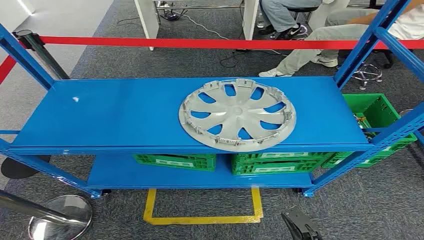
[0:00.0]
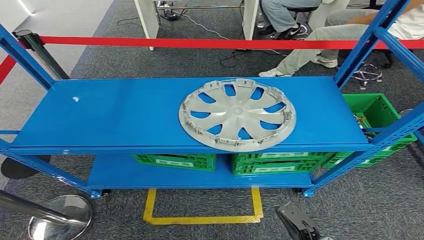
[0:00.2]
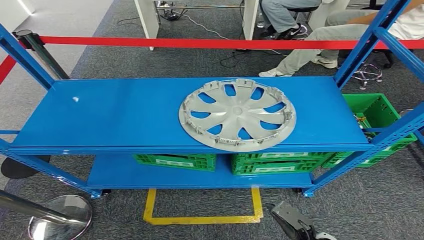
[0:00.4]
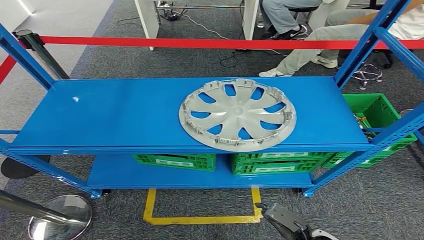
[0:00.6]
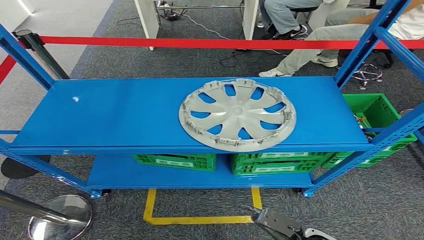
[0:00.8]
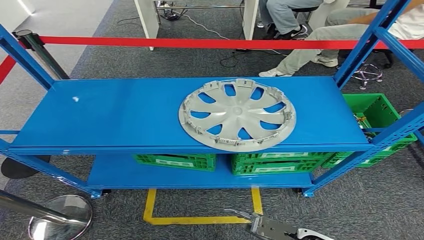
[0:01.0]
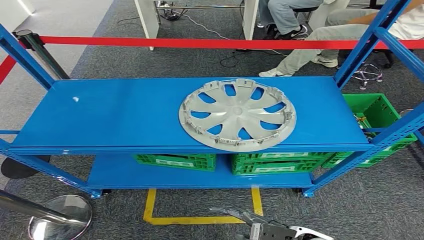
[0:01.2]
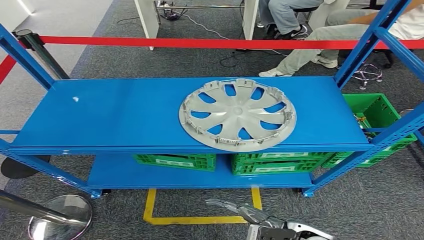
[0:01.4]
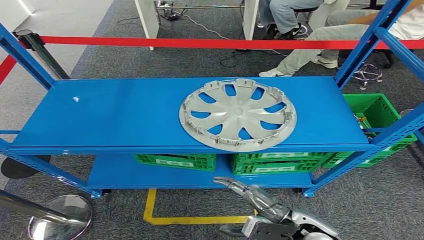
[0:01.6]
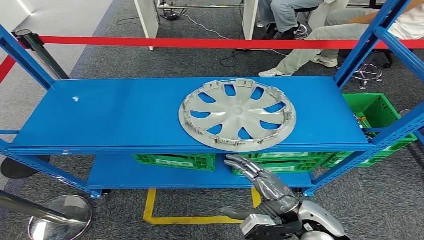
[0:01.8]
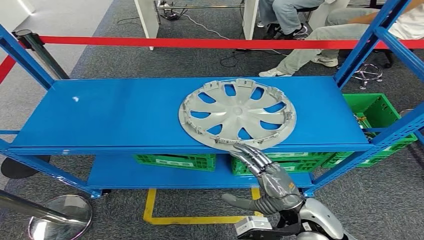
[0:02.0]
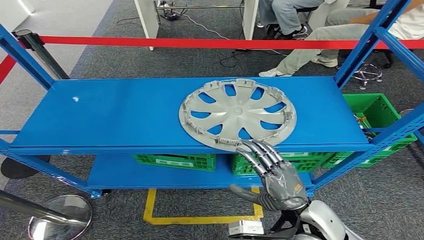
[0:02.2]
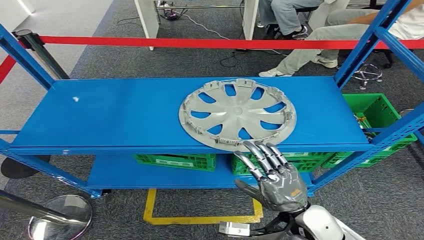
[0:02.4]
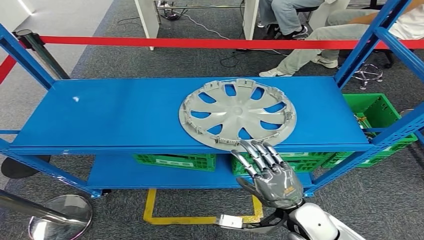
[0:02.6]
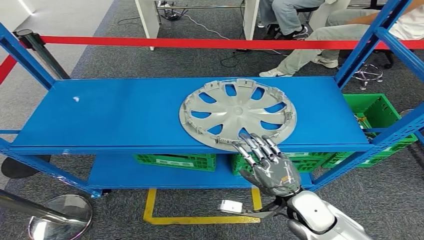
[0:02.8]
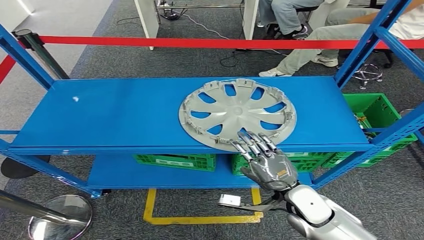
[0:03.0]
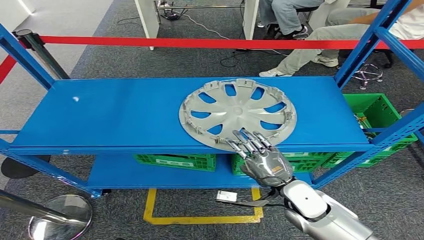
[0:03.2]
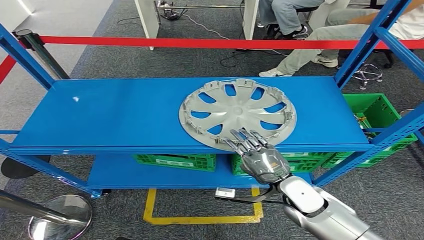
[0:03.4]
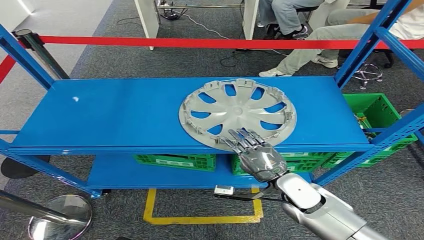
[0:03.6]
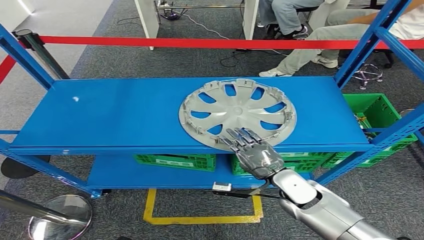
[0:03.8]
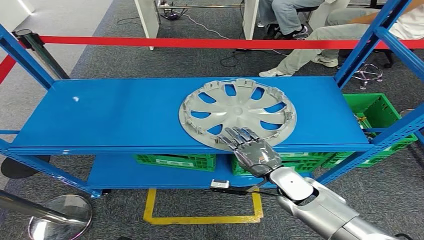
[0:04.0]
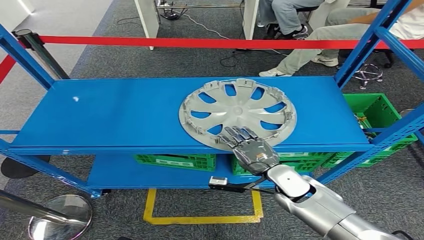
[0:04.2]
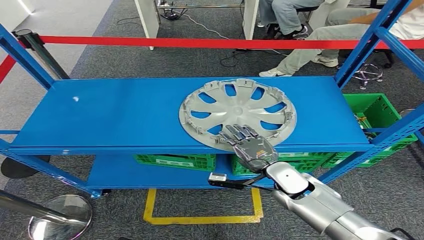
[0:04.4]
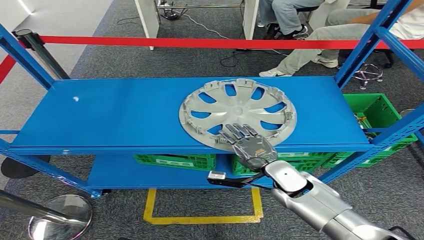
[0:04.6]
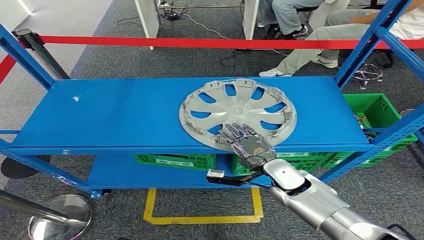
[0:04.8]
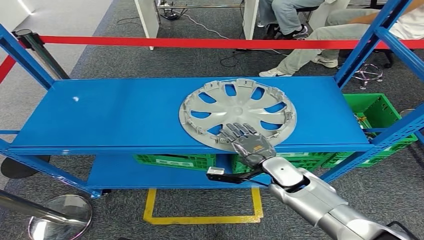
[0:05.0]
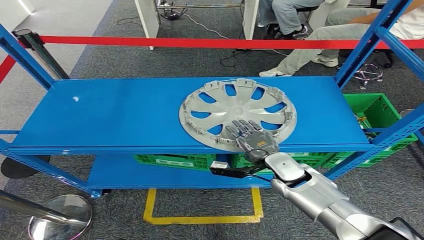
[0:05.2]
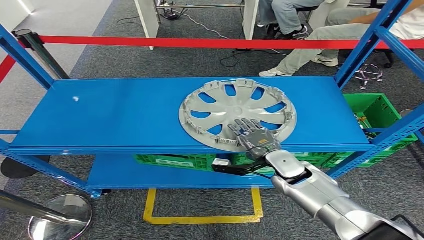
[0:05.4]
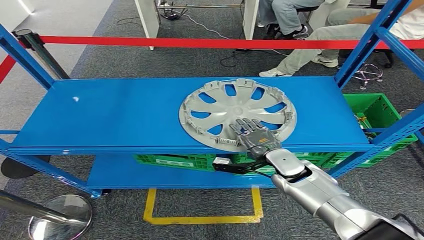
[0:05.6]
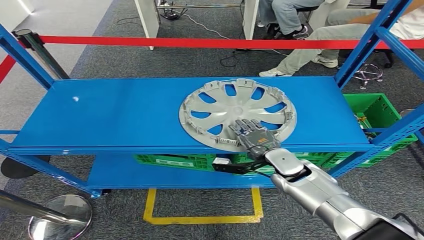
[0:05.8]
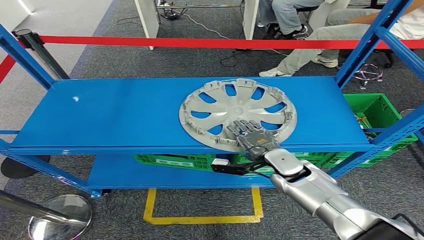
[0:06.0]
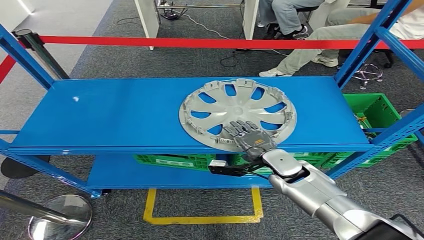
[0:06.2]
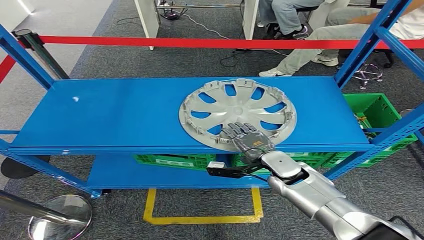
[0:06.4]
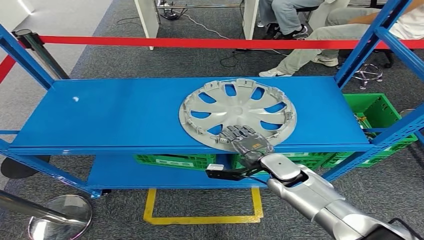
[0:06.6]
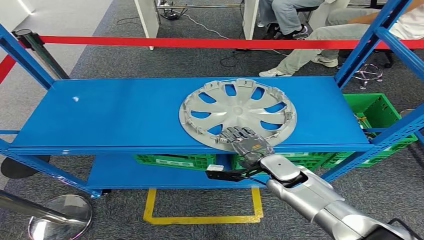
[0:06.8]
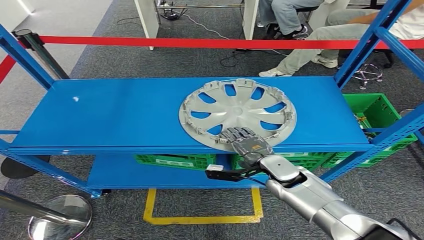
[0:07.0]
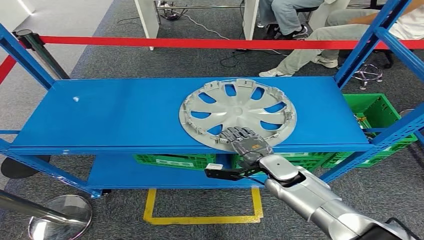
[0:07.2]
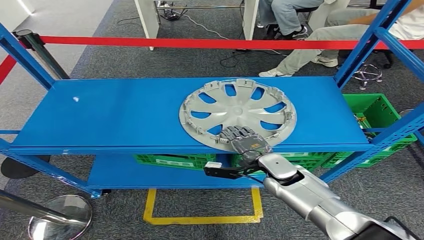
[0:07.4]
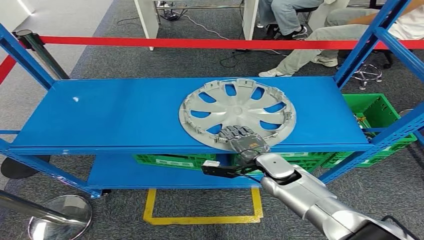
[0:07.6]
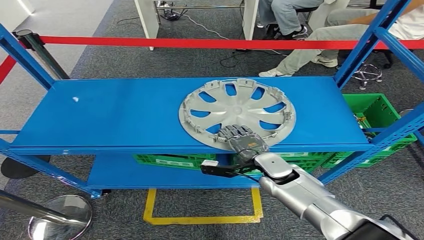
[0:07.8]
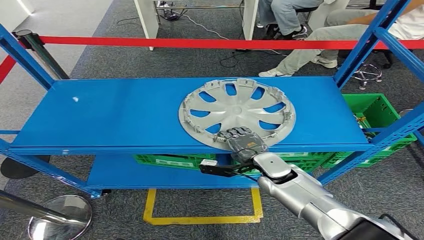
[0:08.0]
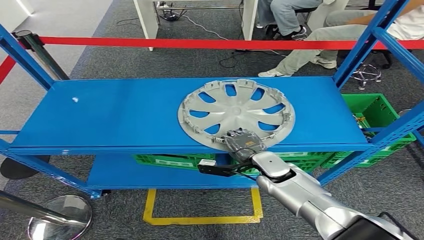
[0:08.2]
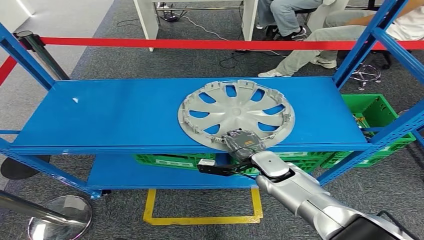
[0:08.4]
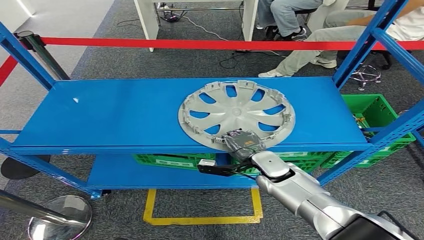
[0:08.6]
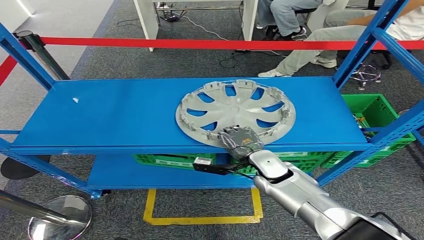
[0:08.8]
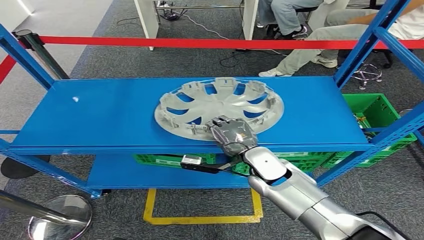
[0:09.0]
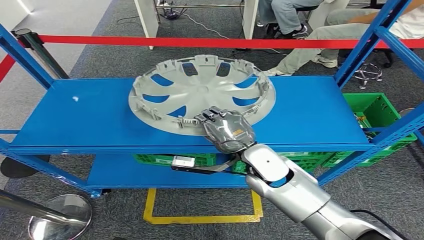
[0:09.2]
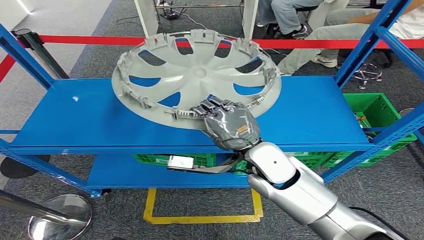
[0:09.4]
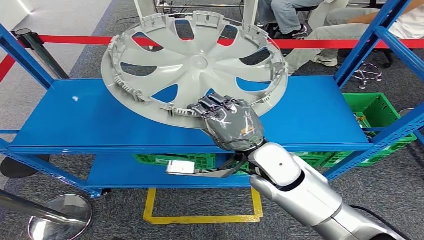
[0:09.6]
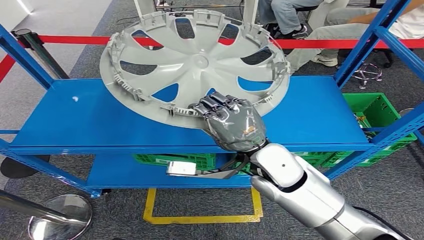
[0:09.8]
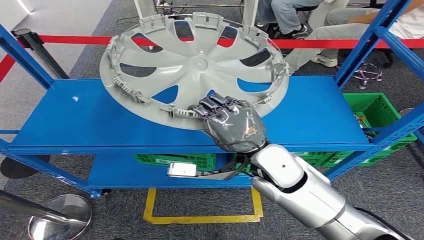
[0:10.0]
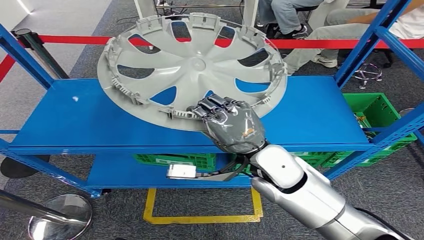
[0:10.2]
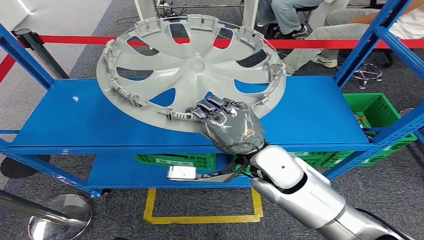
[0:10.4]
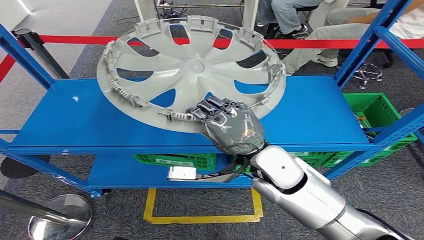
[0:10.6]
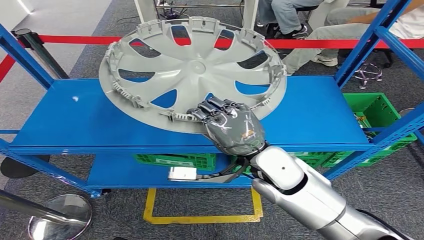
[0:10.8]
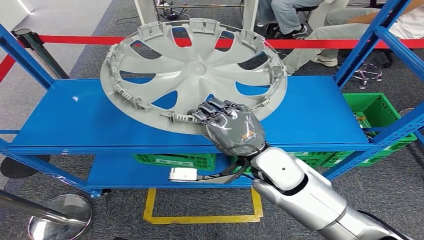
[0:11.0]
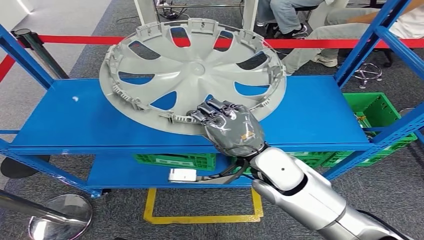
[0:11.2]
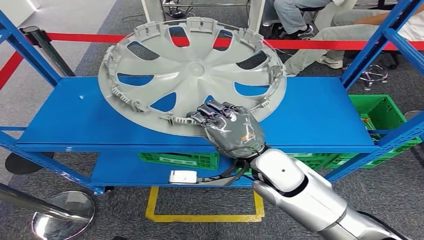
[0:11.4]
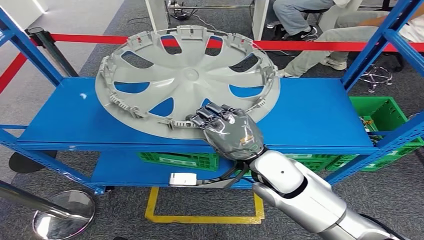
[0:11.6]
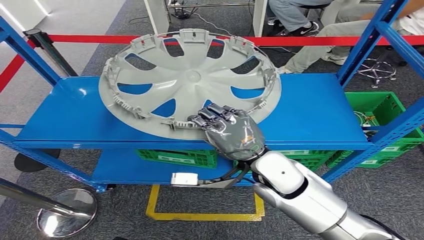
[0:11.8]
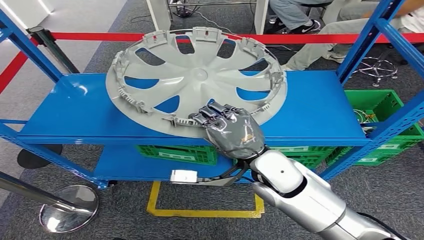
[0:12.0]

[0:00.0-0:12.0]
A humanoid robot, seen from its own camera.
0:01.6 to 0:03.0: The right hand heads forward, covering about 5 cm.
0:03.0 to 0:04.4: The right hand is displaced forward by approximately 5 cm.
0:04.4 to 0:07.6: The hands stay close to where they were, moving slightly.
0:07.6 to 0:09.0: The right hand travels upward by approximately 5 cm.

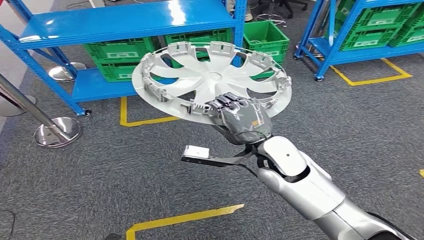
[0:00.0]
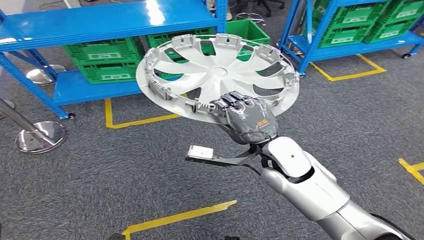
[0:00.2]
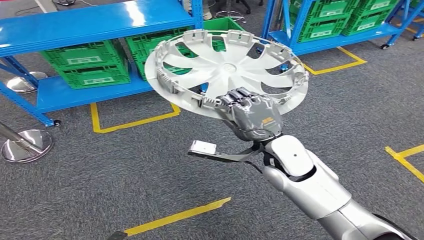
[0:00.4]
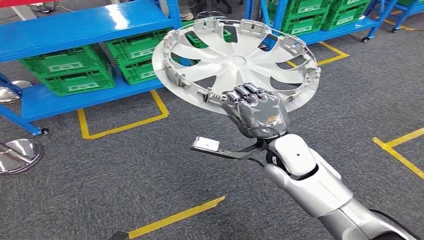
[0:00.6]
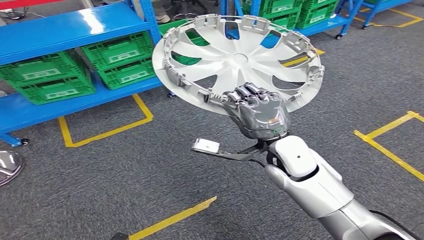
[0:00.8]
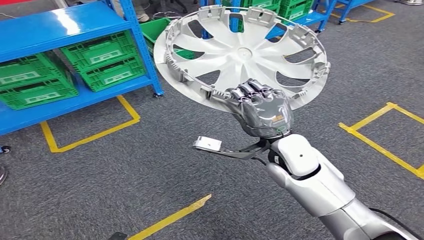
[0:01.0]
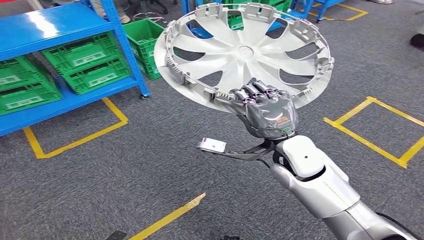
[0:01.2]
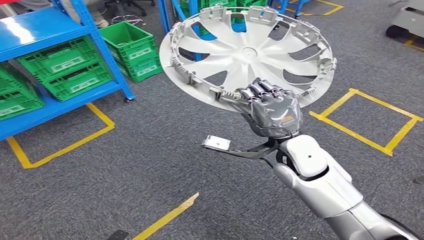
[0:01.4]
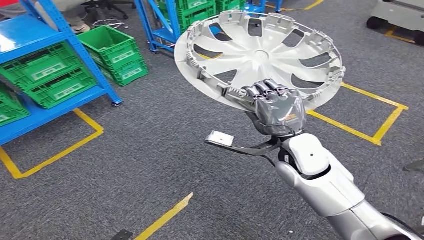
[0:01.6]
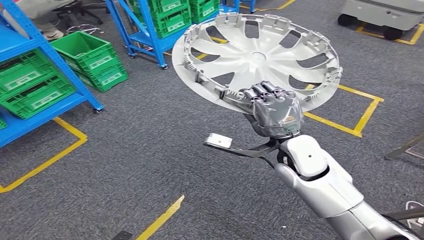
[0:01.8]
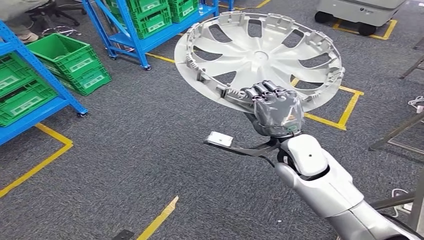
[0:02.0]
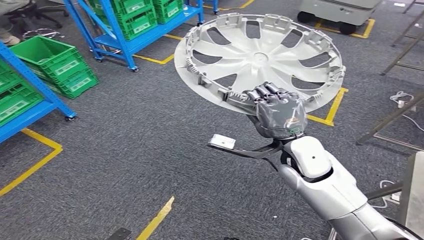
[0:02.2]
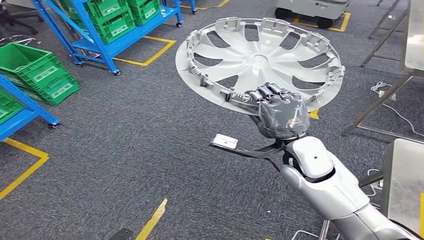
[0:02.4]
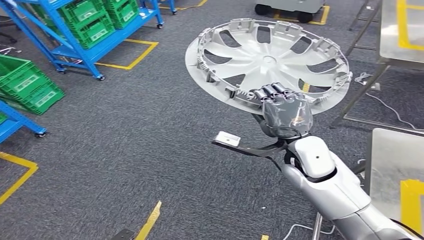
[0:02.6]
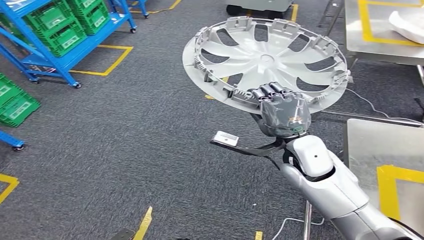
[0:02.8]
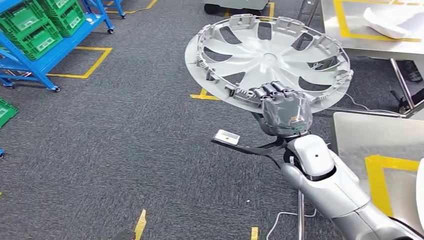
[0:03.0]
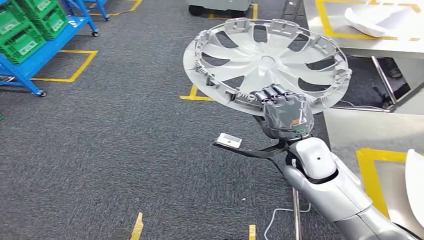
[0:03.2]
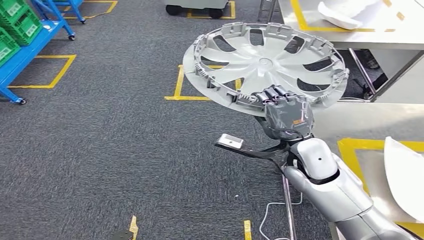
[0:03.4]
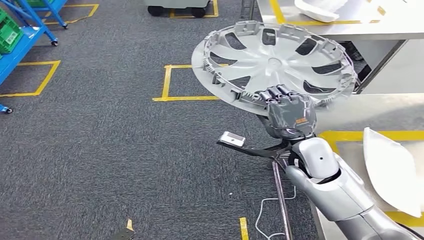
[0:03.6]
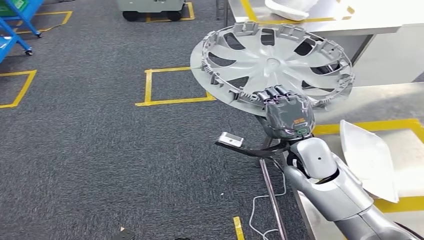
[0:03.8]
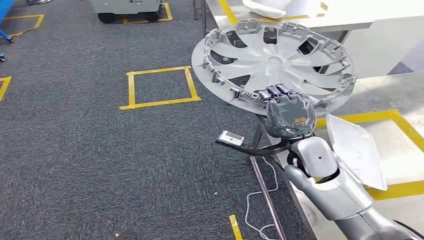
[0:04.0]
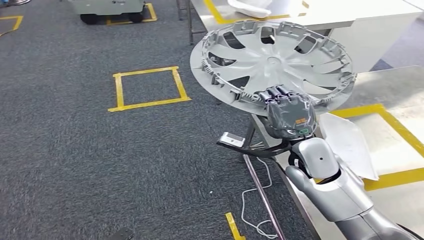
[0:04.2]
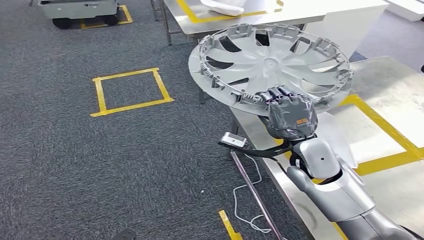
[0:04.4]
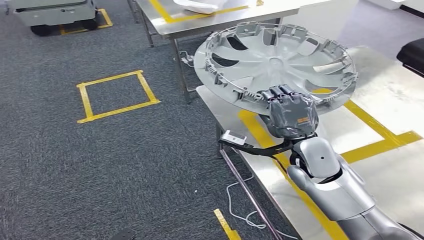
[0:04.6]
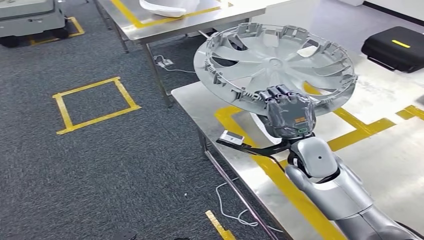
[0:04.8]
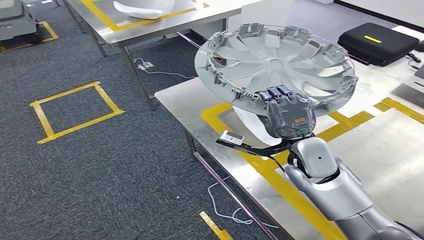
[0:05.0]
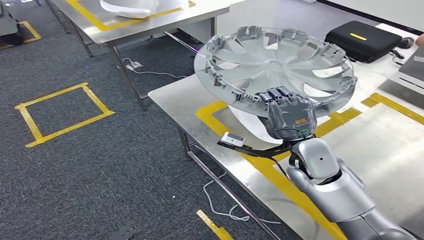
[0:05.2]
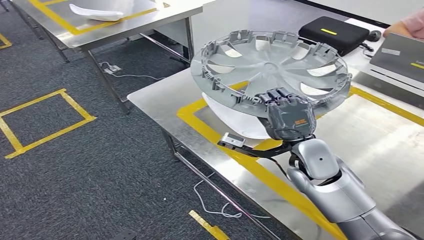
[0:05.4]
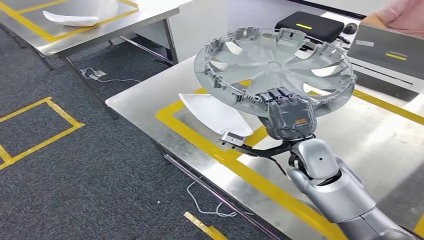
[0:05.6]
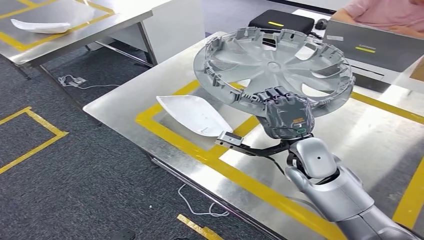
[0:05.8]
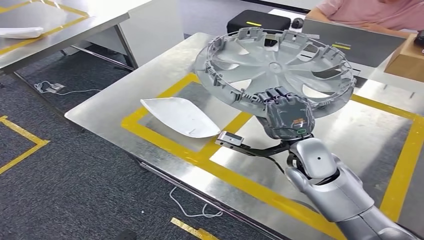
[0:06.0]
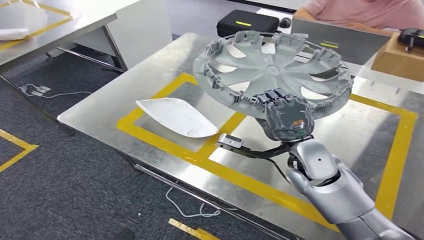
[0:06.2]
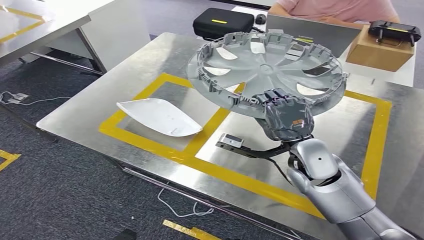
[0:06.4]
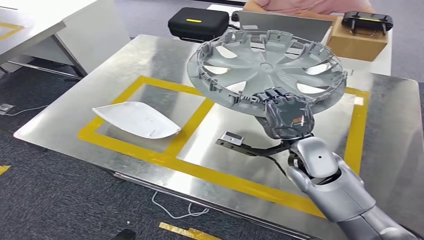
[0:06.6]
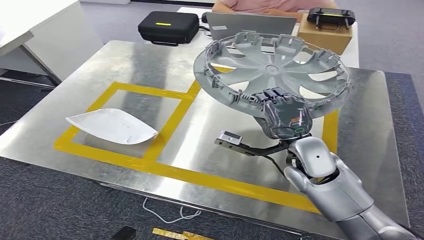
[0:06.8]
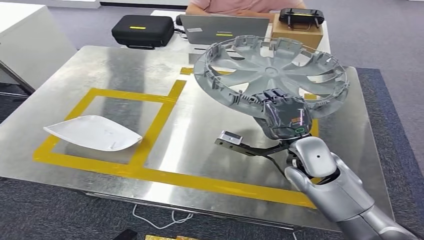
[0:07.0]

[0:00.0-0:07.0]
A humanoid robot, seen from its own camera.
Step, 0:00.0 to 0:06.2: Move the small parts to the workbench.
